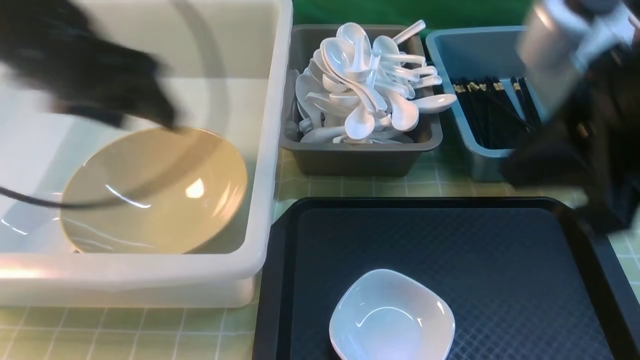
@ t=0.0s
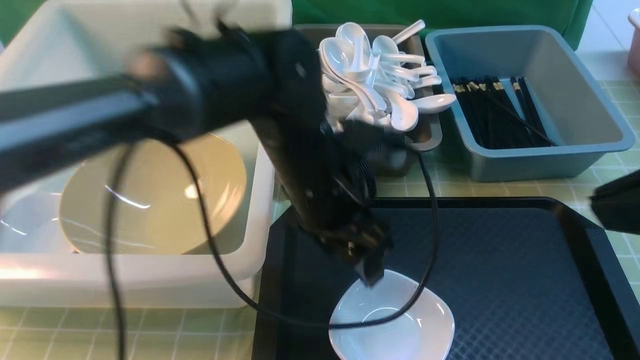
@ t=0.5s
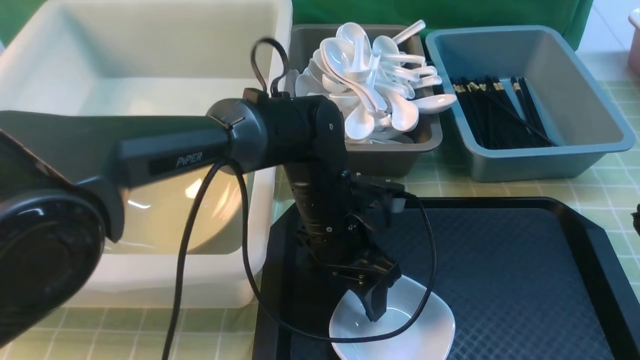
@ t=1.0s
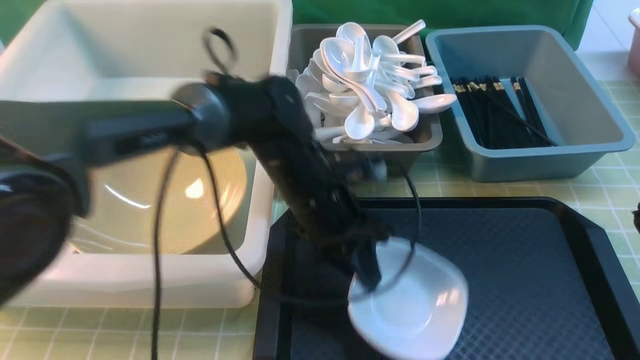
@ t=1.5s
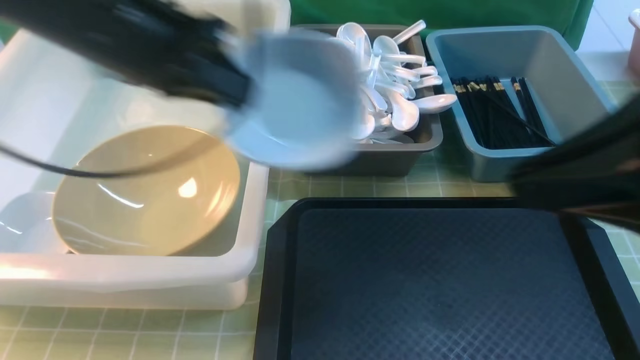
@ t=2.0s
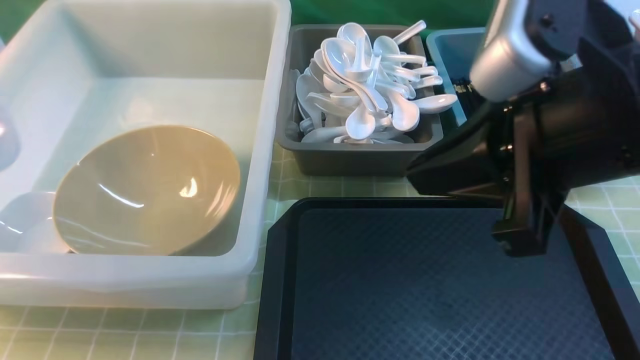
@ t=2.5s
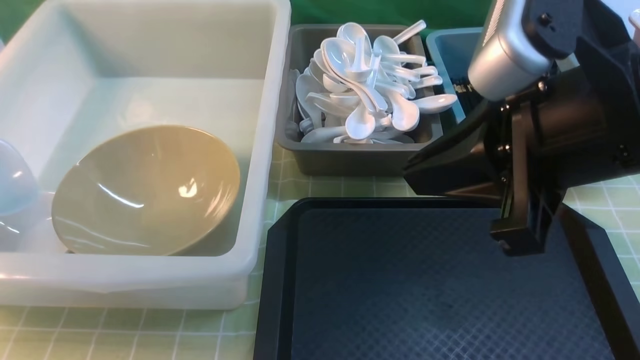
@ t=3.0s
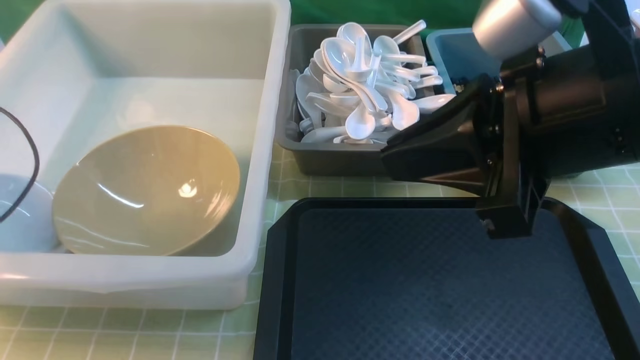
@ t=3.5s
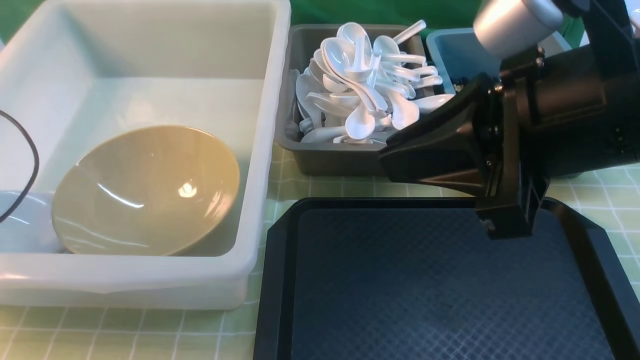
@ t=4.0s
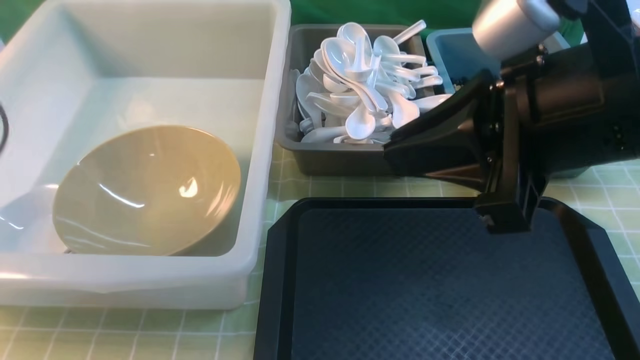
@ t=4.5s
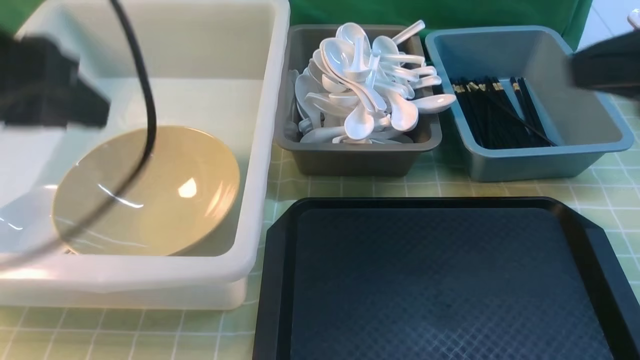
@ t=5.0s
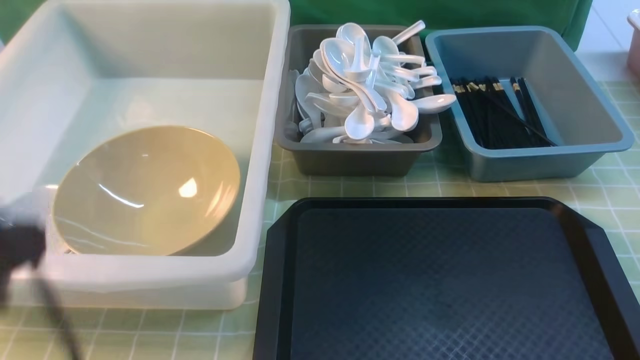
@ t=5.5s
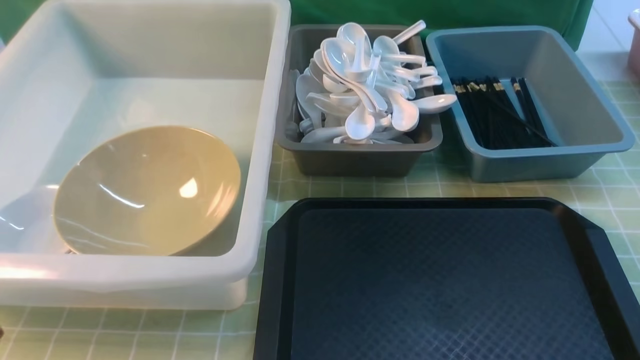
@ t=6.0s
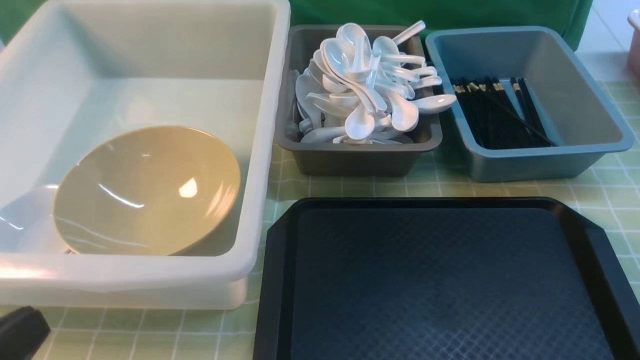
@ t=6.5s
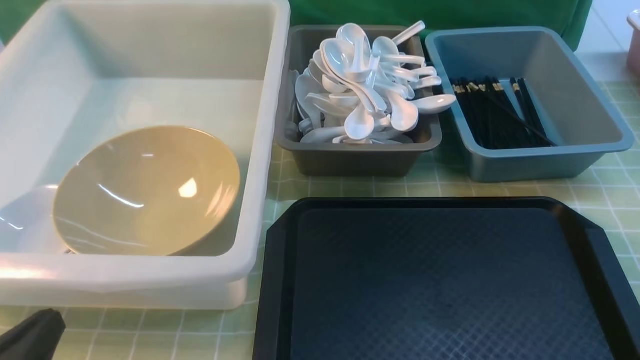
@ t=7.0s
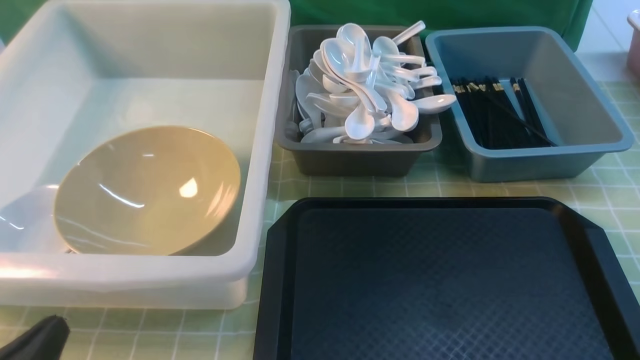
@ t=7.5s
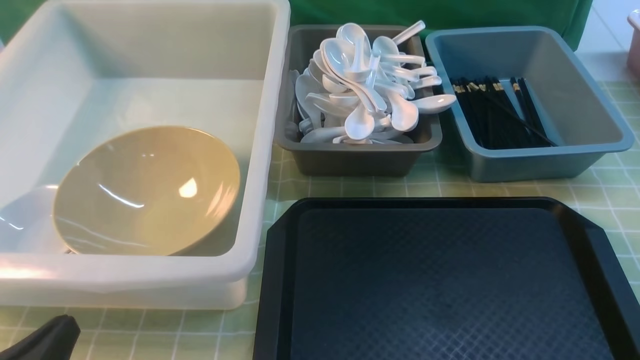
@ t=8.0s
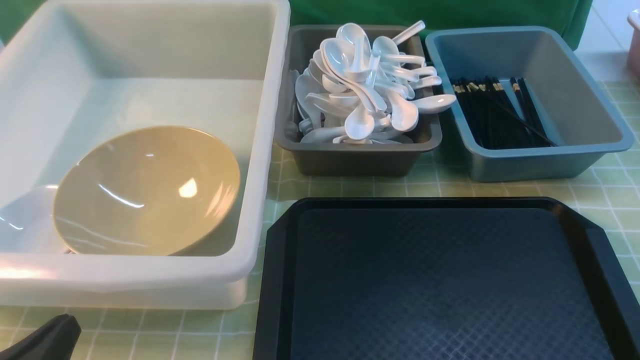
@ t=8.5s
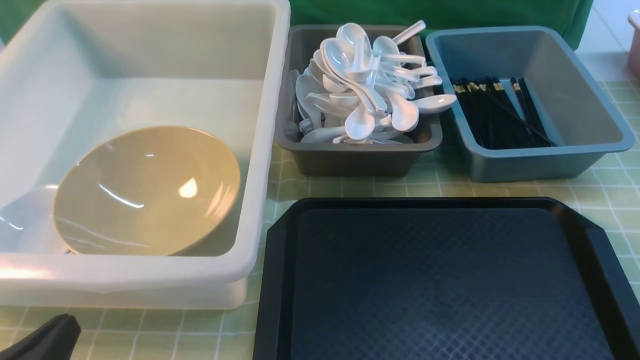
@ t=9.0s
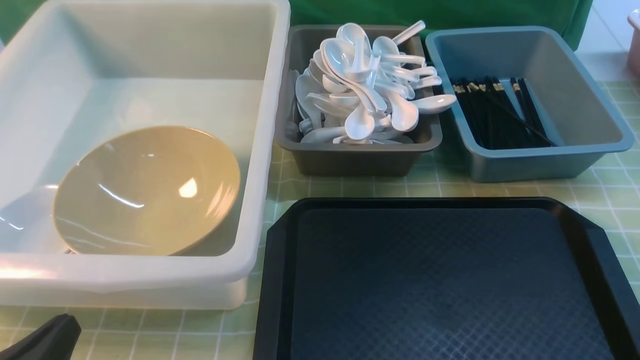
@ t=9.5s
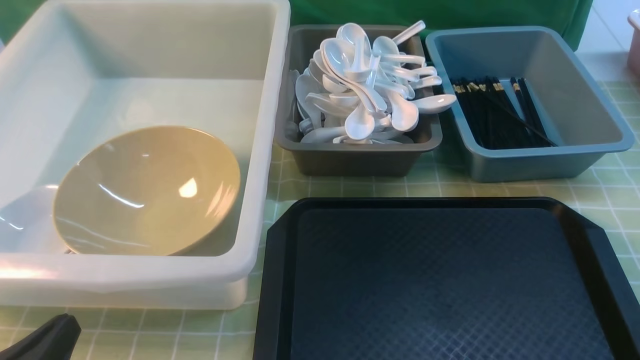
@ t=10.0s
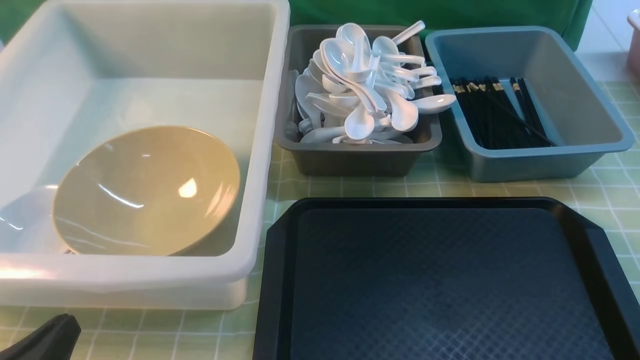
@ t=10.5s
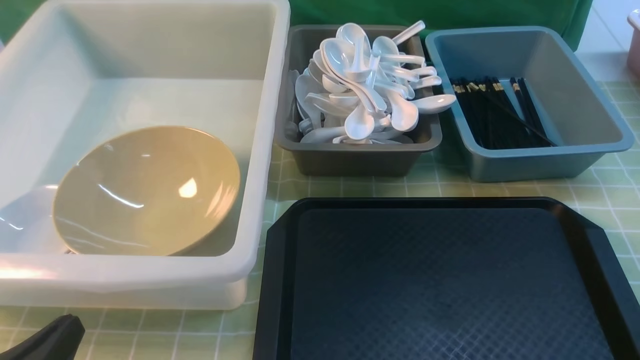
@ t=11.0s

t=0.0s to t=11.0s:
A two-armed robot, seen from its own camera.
Task of the whole recording: on green table put chopsticks spoon bowls plates into blue grey white boxes.
Step, t=0.0s to t=1.5s: use the left arm to grab the plate.
Step, t=2.0s to t=4.5s: use the left arm to put the plate into the large storage box on the left.
t=0.0s to t=2.0s: The right gripper shifts roughly 5 cm backward, while the left gripper goes to the right and returns, approximately 25 cm each way, and closes.
t=2.0s to t=3.5s: The right gripper travels forward and to the left by about 10 cm. Meanwhile the left gripper goes approximately 25 cm to the left.
t=3.5s to t=5.5s: The right gripper heads to the right and backward, covering some 15 cm; the left gripper shifts approximately 30 cm backward, to the right and upward, and opens and closes again.
t=5.5s to t=7.5s: The left gripper goes approximately 20 cm downward.
